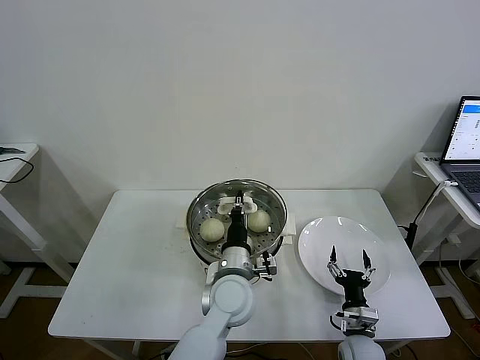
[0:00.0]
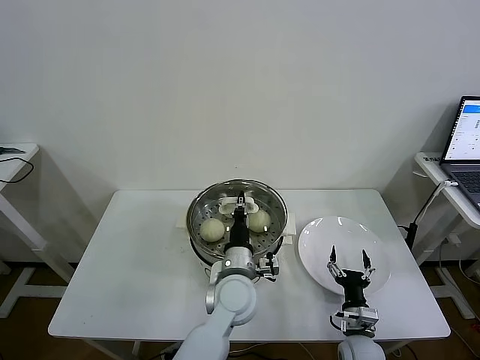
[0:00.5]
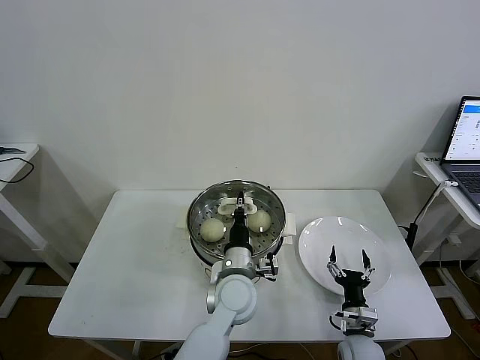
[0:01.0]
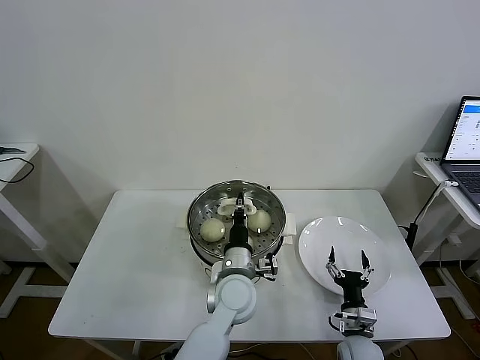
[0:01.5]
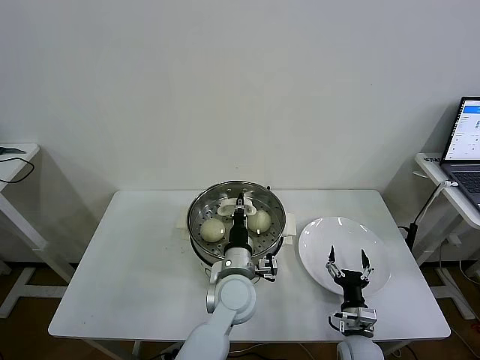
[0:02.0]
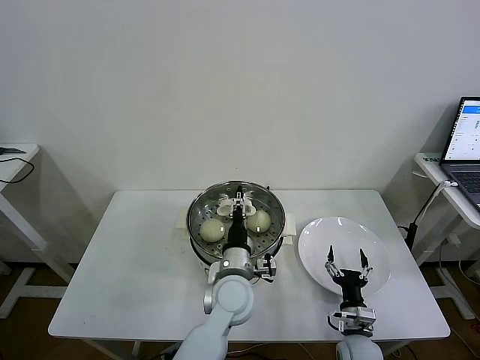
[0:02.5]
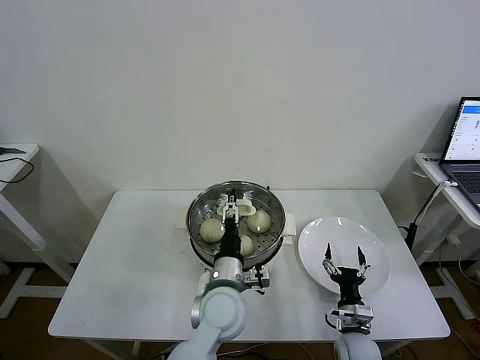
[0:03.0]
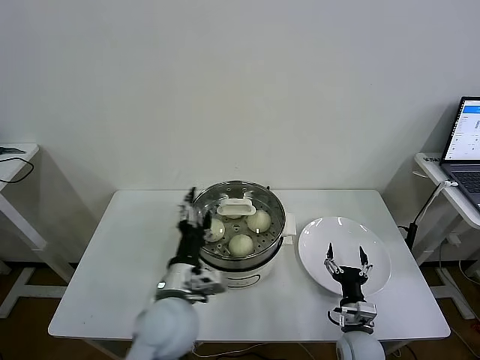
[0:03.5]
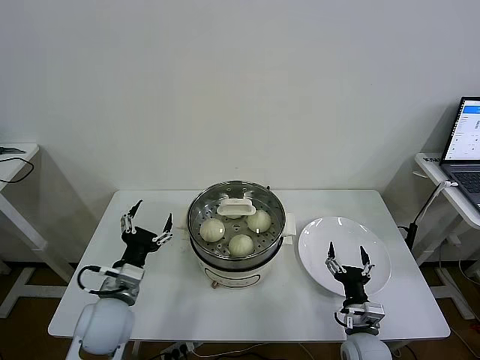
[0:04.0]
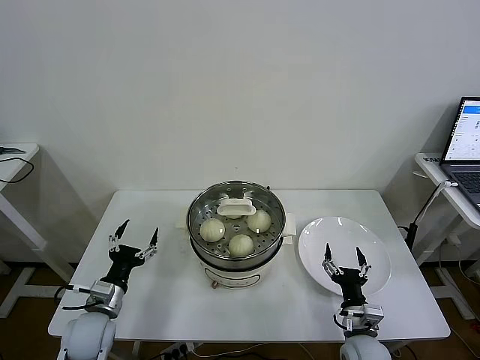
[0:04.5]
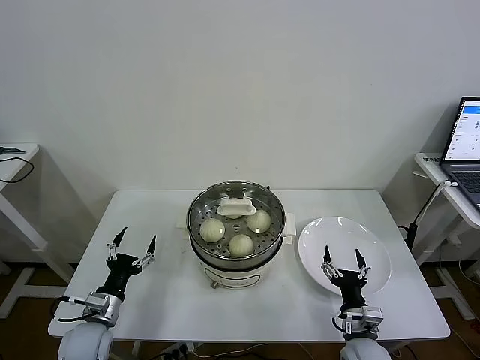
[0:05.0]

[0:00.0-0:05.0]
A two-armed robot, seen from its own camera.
Task of the whole recording: take steamed baozi put them in steamer then cover it.
Step, 0:00.0 to 0:02.0: Place the pot lid on the steamer with left gripper.
0:00.0 to 0:02.5: The left gripper opens its fingers.
0:02.5 to 0:05.0: The right gripper is displaced upward by roughly 5 cm. Meanwhile the left gripper travels to the left by some 30 cm, and opens up.

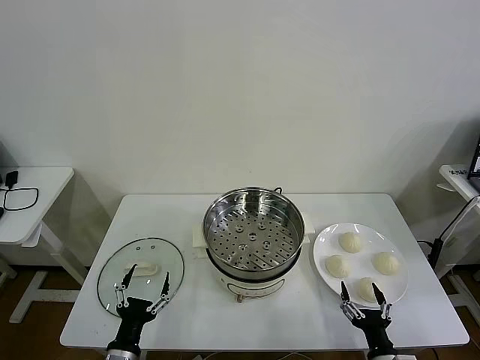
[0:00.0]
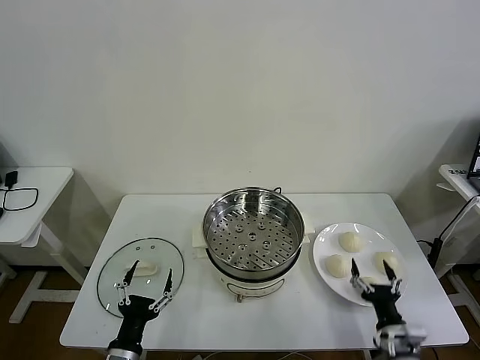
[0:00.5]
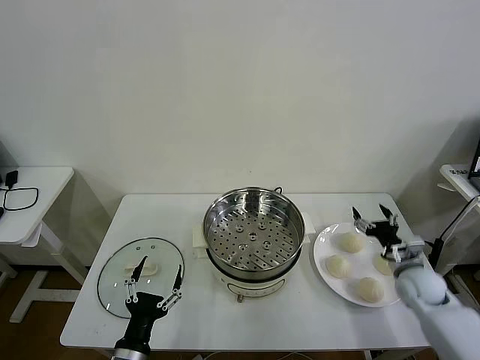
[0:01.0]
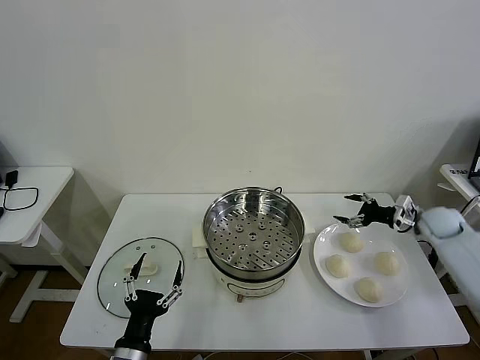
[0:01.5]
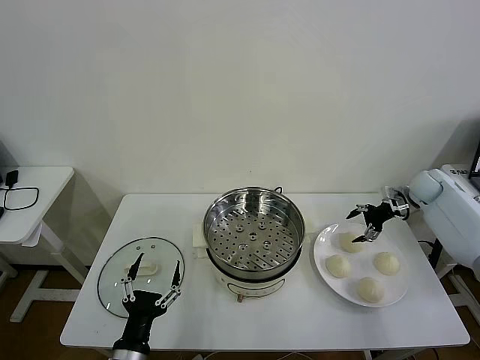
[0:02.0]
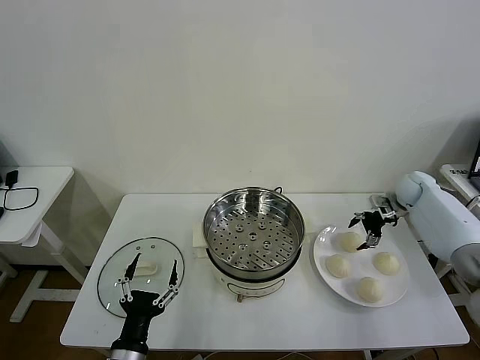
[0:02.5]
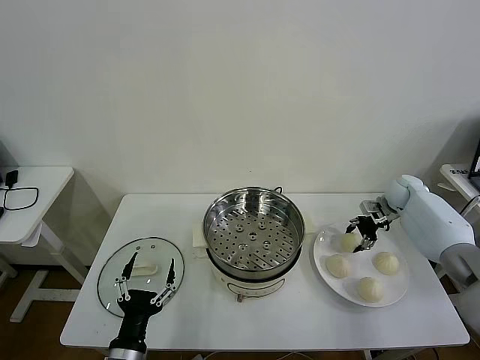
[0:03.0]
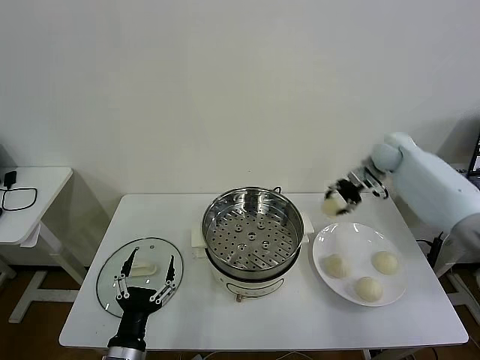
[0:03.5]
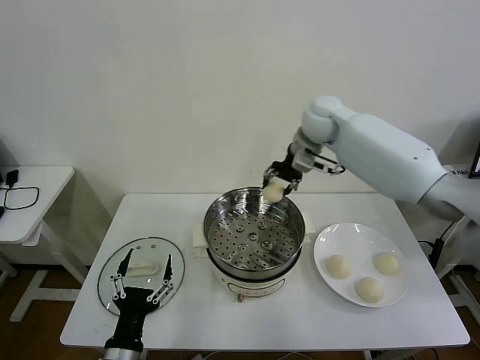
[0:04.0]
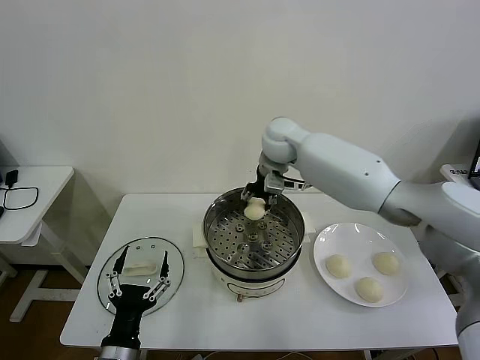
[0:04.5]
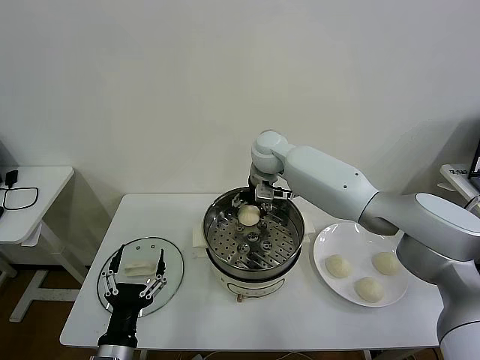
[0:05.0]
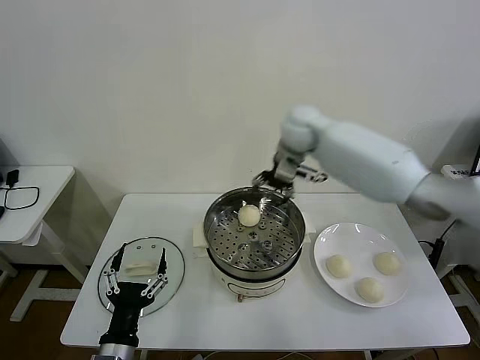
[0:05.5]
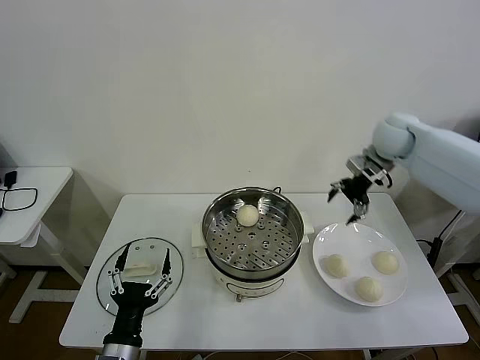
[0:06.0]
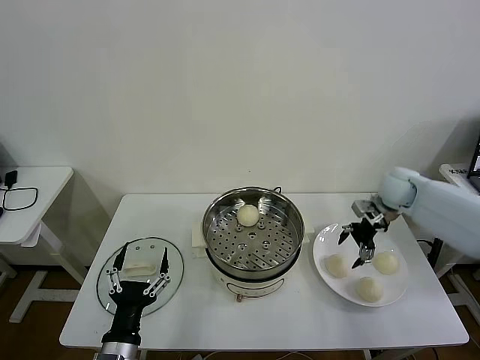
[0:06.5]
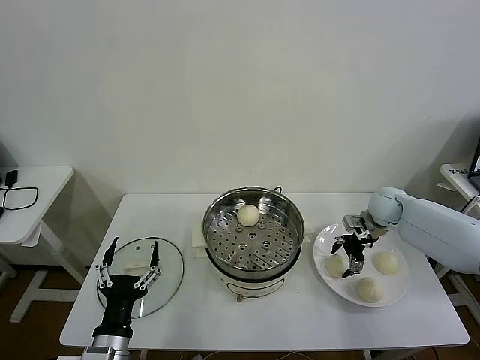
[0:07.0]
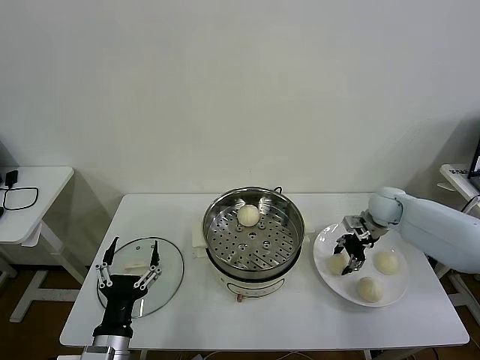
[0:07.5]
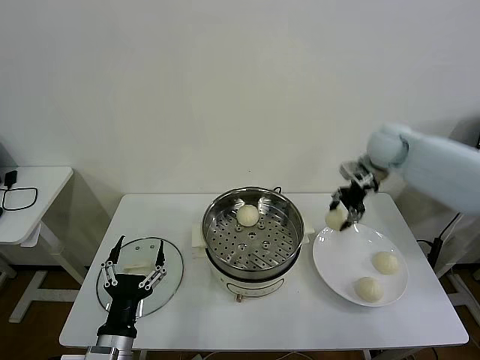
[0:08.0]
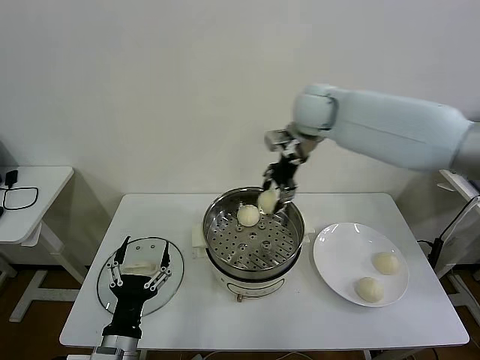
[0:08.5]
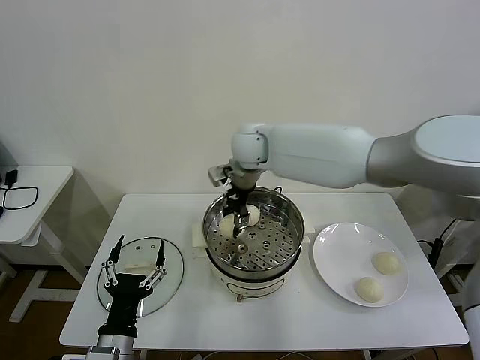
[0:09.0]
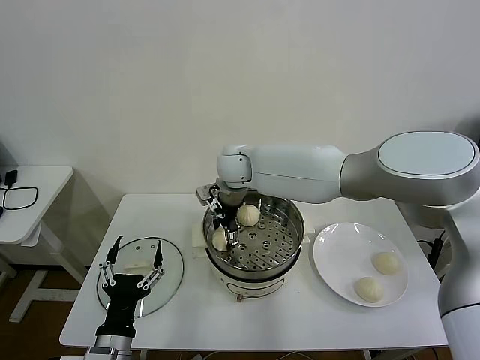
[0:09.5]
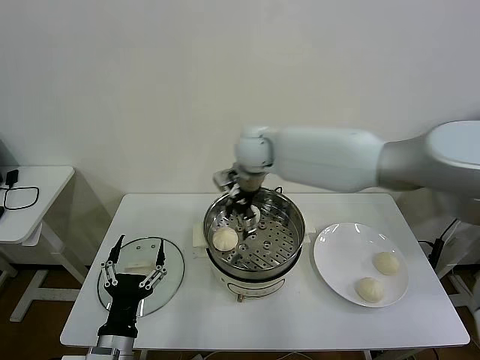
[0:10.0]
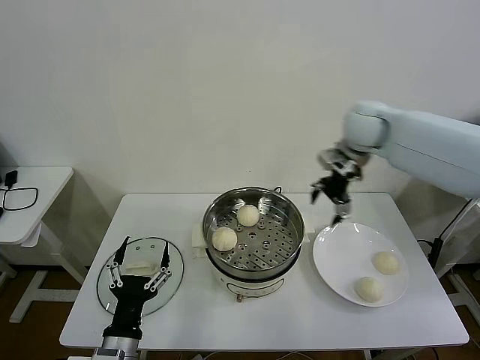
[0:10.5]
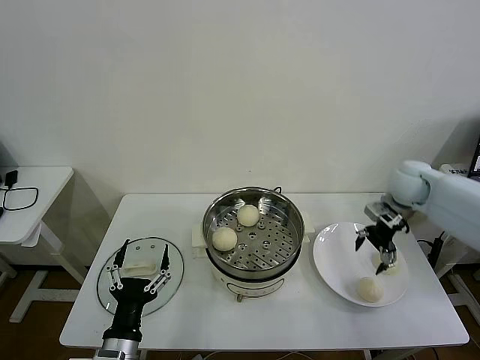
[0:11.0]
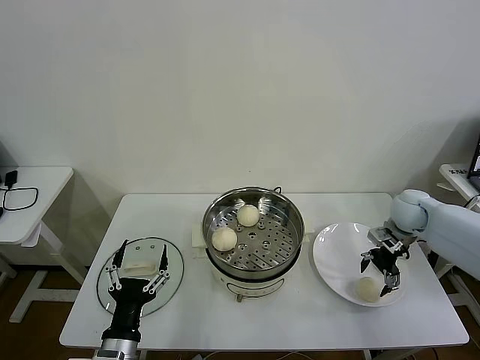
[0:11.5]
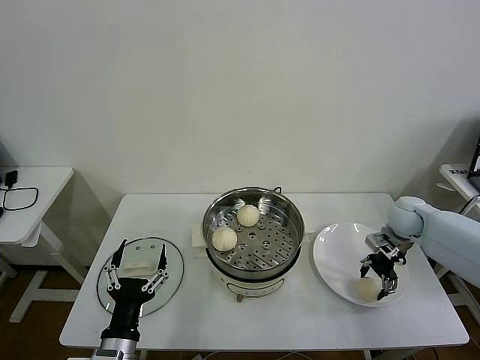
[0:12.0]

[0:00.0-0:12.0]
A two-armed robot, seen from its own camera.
Task of the whole recording: take steamed baozi put them in steamer then cover it.
Step, 0:00.0 to 0:03.0: Grasp the baozi in the plate with right gripper.
Step, 0:03.5 to 0:05.0: Place the baozi on the steamer with right gripper.
Step, 0:05.5 to 0:07.5: Grasp the baozi in the plate with right gripper.
Step, 0:08.0 to 0:09.5: Place the baozi on the steamer with right gripper.
0:02.0 to 0:04.0: The right gripper heads to the left and upward, covering some 40 cm, and closes up.
0:04.0 to 0:06.0: The right gripper heads to the right, covering approximately 20 cm, and opens.
0:06.0 to 0:08.0: The right gripper goes some 5 cm to the left, goes downward and returns, about 15 cm each way, and closes up.
0:08.0 to 0:10.0: The right gripper travels to the left by about 25 cm, and opens up.
0:10.0 to 0:12.0: The right gripper is displaced to the right and downward by about 40 cm, and closes.

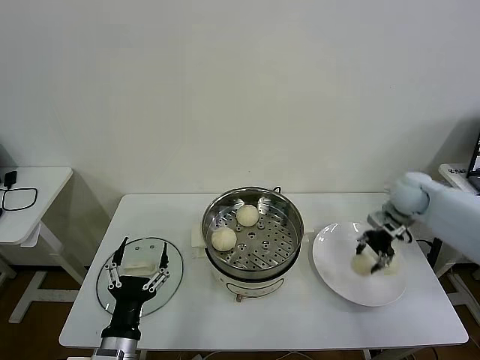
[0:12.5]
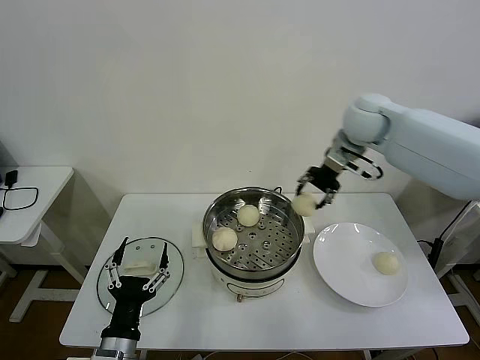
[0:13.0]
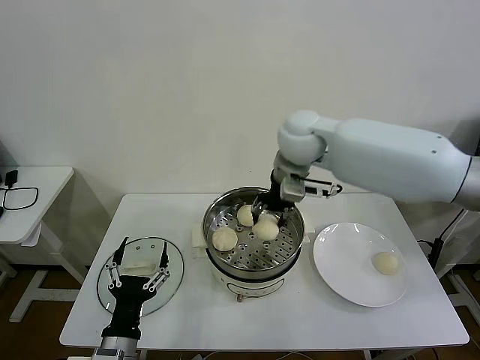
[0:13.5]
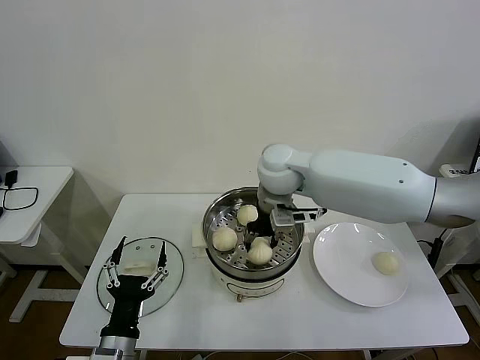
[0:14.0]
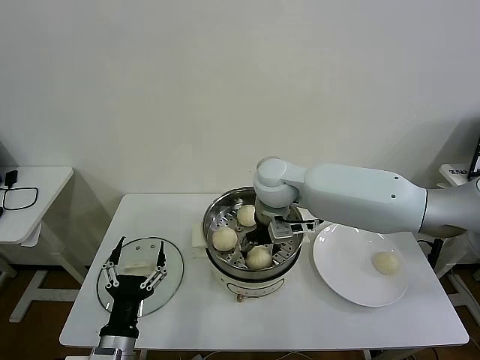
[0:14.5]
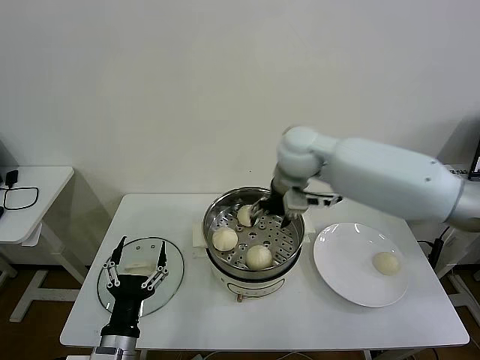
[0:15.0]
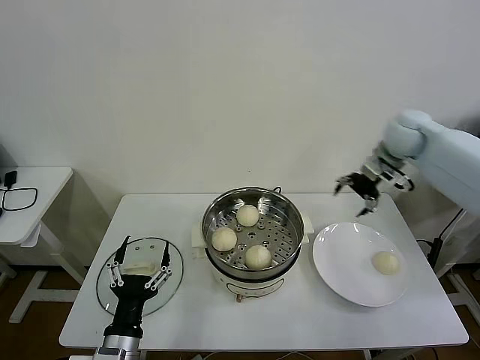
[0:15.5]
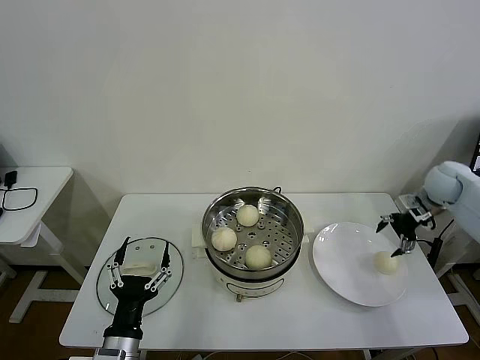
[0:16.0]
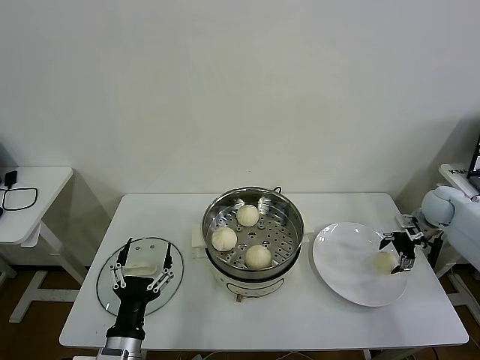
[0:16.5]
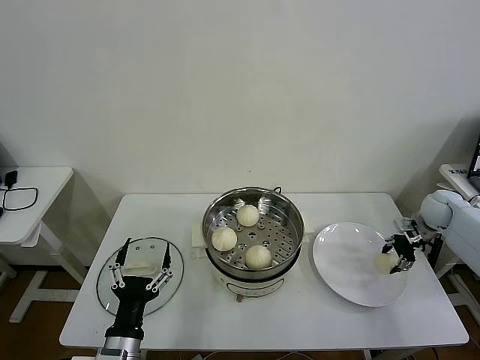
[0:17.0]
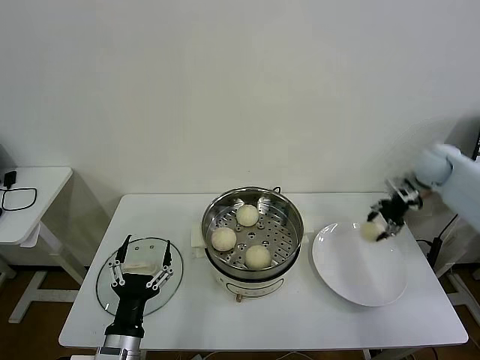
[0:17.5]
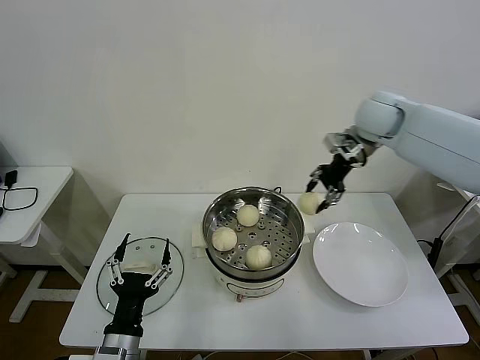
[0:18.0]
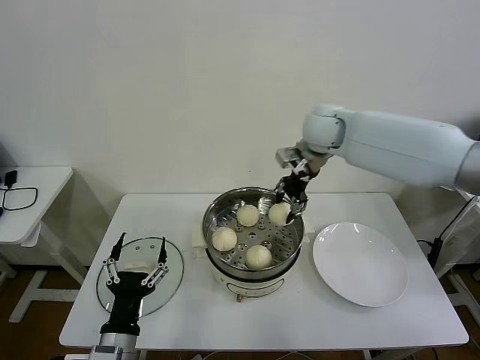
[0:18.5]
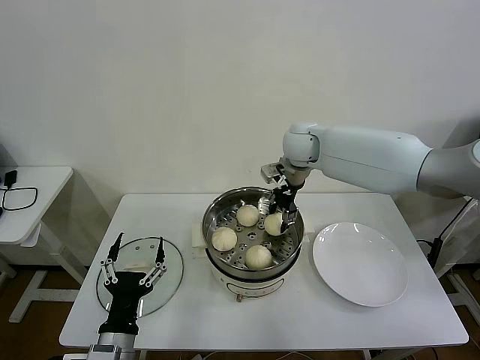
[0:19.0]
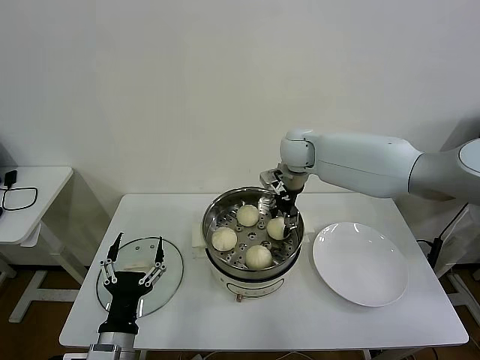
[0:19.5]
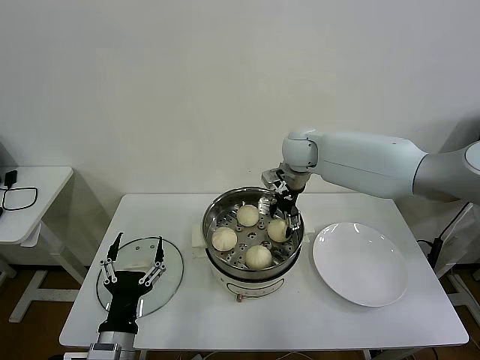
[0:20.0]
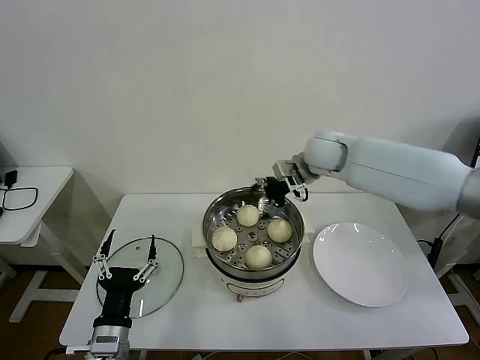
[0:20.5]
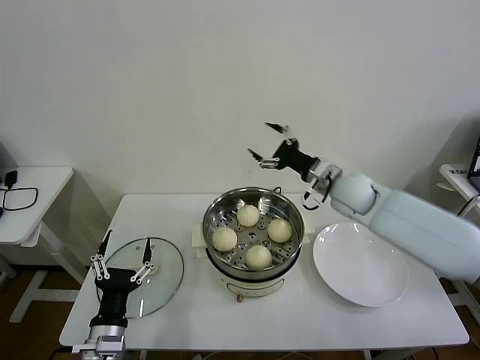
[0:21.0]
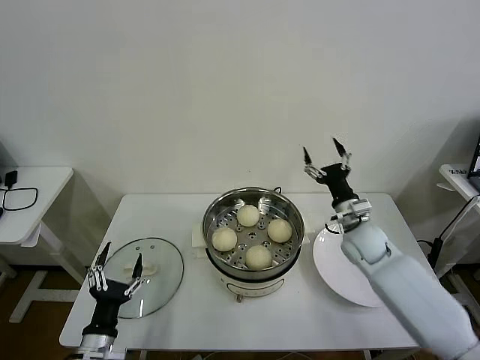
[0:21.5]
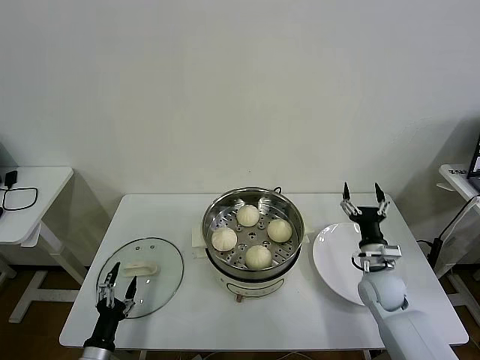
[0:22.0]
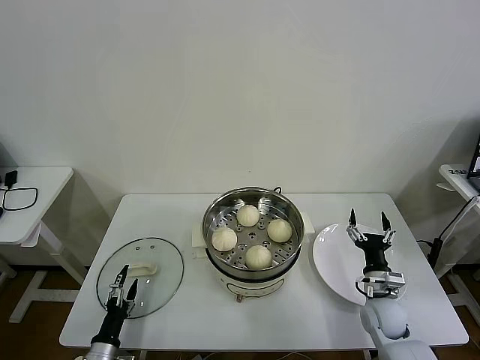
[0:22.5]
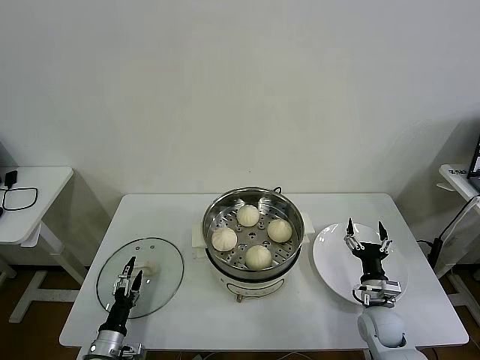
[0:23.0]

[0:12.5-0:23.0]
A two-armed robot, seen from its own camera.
Task of the whole recording: take steamed baozi put them in steamer then cover it.
Step, 0:12.5 to 0:15.0: Place the baozi on the steamer with right gripper.
Step, 0:15.5 to 0:17.0: Grasp the baozi in the plate with right gripper.
Step, 0:17.5 to 0:20.0: Place the baozi on the steamer with right gripper.
0:12.5 to 0:14.5: The right gripper goes approximately 35 cm to the left, and opens up.
0:14.5 to 0:16.5: The right gripper goes some 40 cm to the right.
0:16.5 to 0:19.0: The right gripper goes roughly 35 cm to the left, and closes.
0:19.0 to 0:21.0: The right gripper travels to the right, backward and downward by about 15 cm, and opens up.
0:21.0 to 0:23.0: The left gripper is displaced downward and to the left by approximately 20 cm, while the right gripper heads downward and backward, covering approximately 35 cm.
